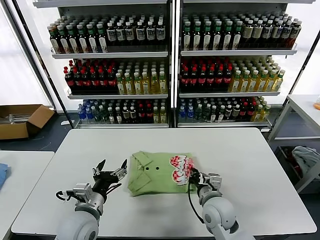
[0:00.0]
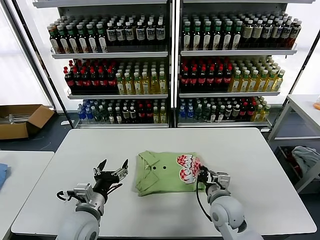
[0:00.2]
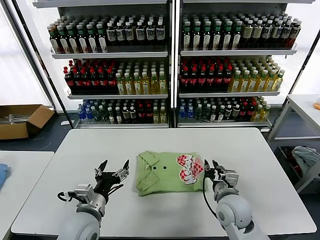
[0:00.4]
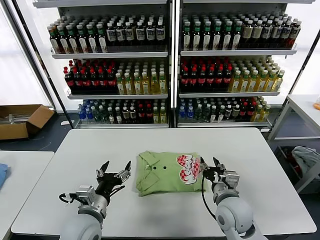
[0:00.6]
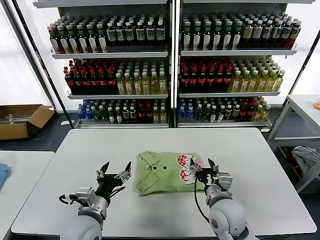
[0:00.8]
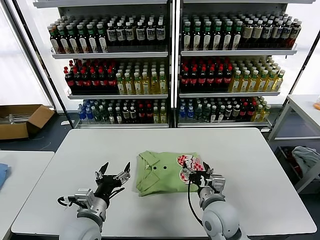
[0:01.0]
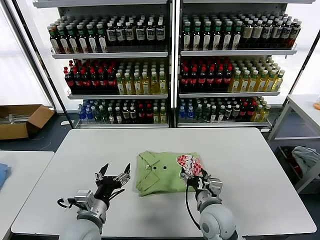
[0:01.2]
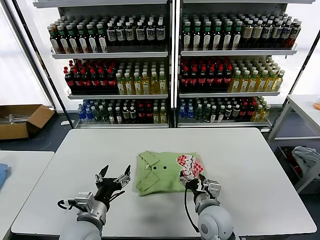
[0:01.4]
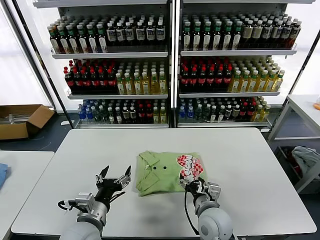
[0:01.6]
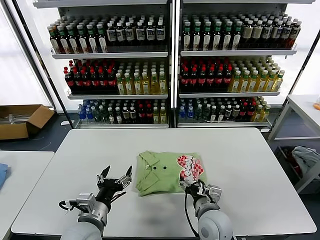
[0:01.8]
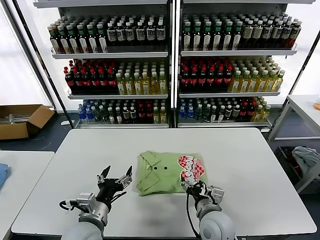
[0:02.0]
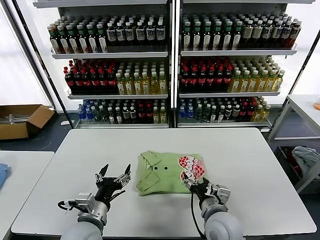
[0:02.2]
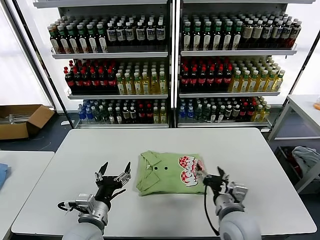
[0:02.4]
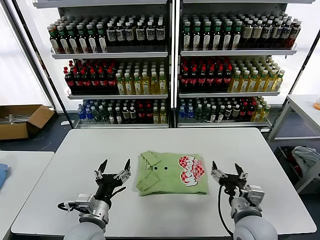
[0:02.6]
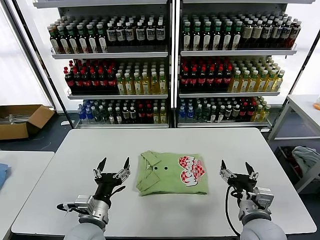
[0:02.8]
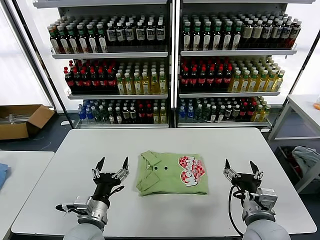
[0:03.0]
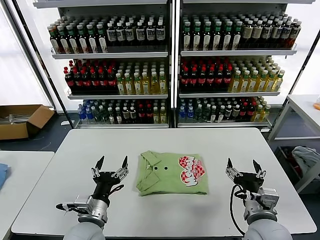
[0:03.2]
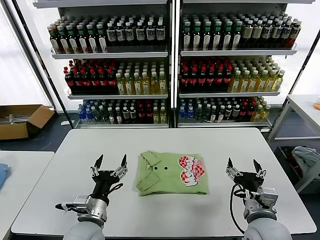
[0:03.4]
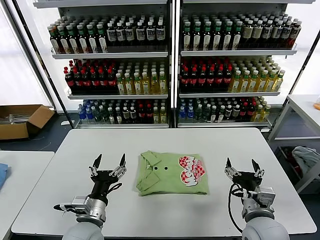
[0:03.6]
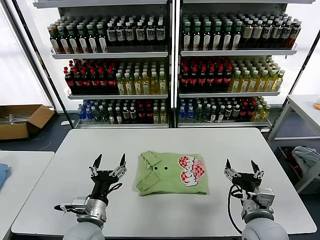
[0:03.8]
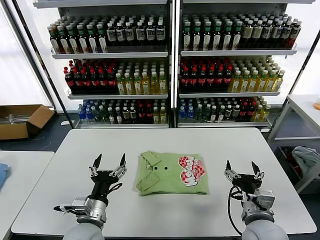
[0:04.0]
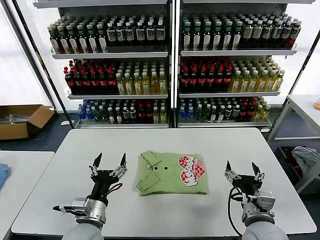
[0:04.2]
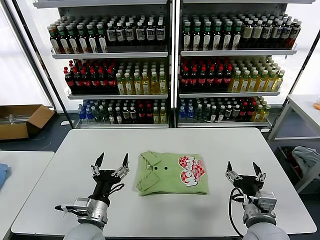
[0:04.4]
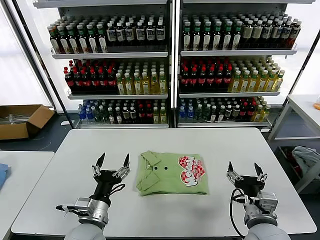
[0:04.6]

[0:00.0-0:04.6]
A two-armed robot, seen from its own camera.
Task of the whole recording: fold and organize the clothes.
Step, 0:00.0 to 0:02.2: Drag the clothes to the center of the table.
0:00.0 to 0:01.6: The right gripper opens up.
0:01.6 to 0:03.0: The right gripper travels to the right, upward and backward by approximately 15 cm.
0:03.0 to 0:04.6: The grippers move only a little.
